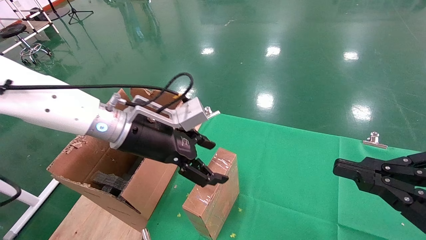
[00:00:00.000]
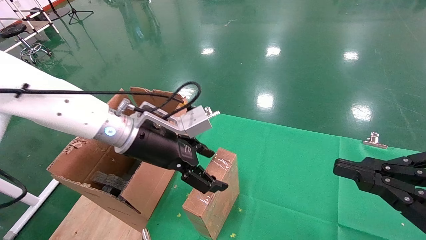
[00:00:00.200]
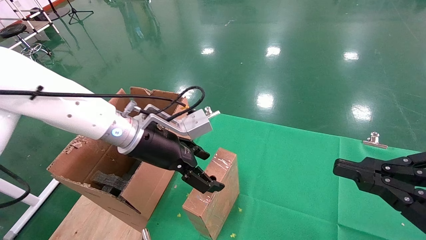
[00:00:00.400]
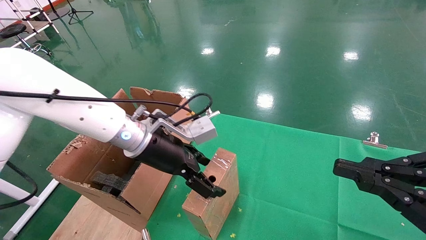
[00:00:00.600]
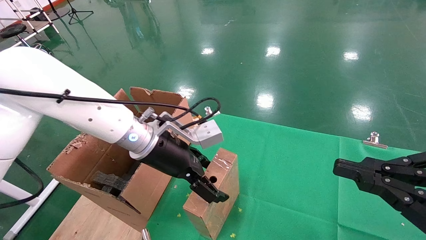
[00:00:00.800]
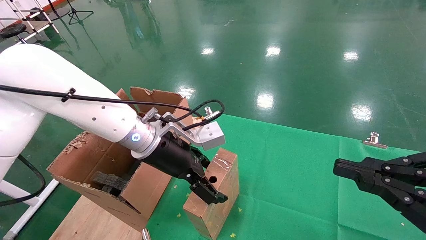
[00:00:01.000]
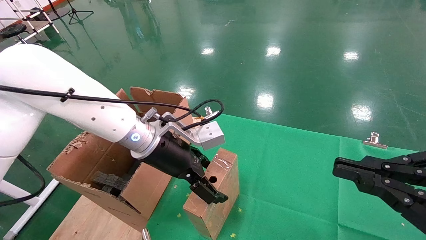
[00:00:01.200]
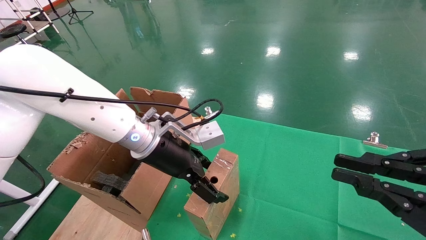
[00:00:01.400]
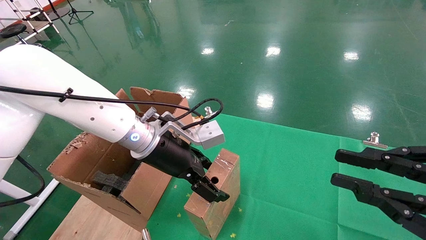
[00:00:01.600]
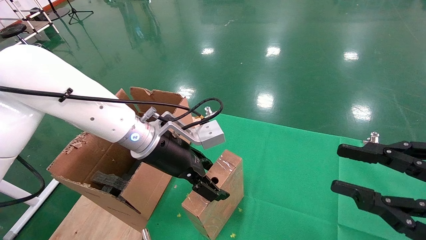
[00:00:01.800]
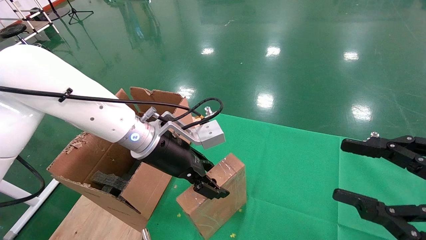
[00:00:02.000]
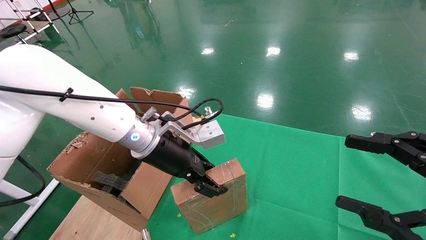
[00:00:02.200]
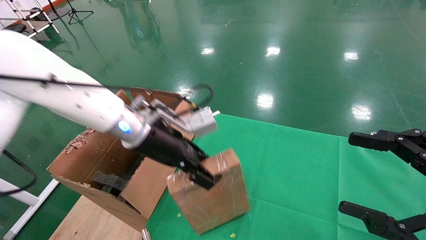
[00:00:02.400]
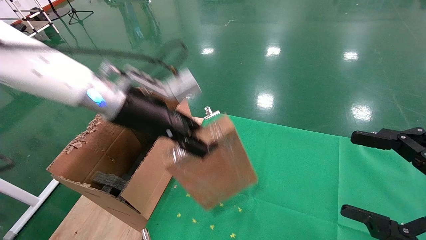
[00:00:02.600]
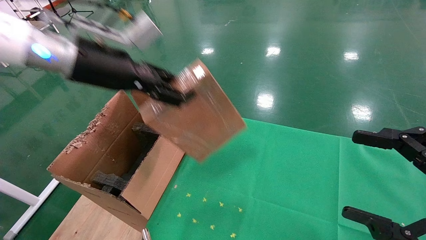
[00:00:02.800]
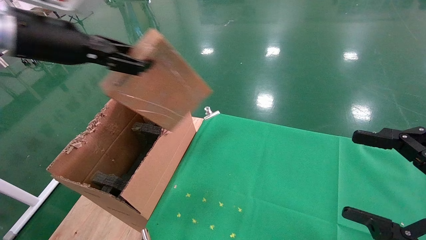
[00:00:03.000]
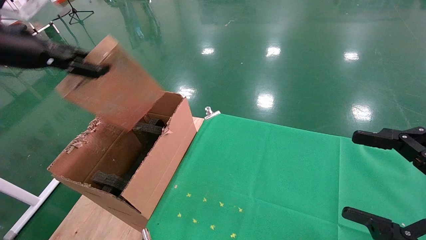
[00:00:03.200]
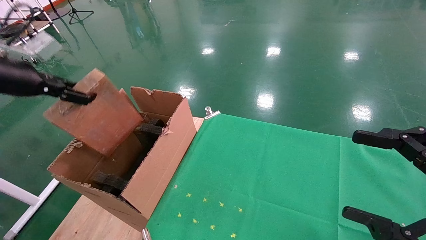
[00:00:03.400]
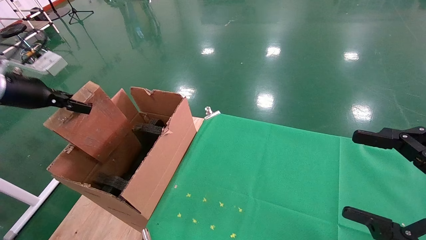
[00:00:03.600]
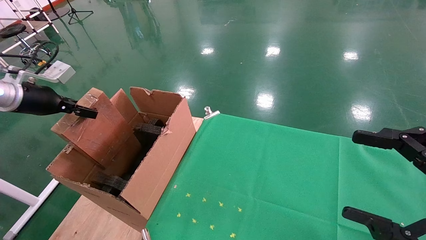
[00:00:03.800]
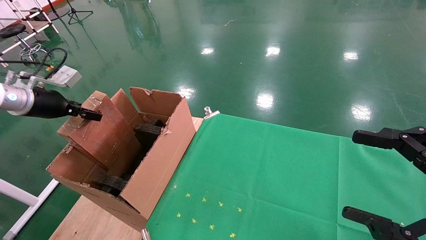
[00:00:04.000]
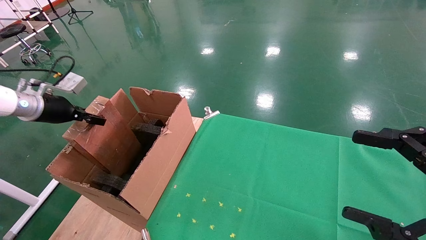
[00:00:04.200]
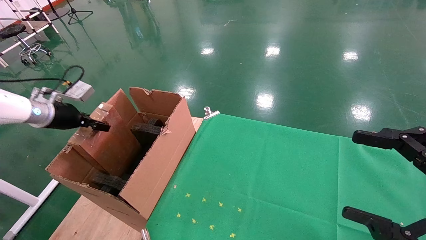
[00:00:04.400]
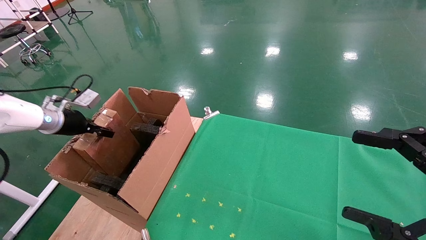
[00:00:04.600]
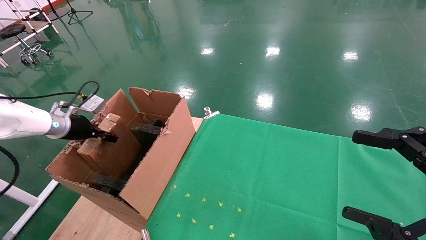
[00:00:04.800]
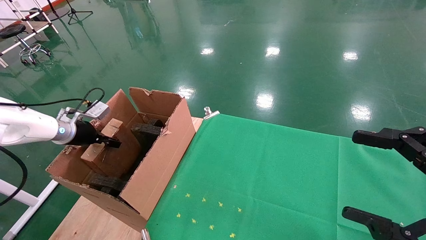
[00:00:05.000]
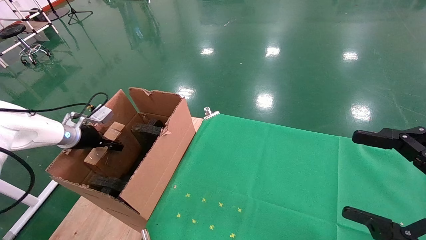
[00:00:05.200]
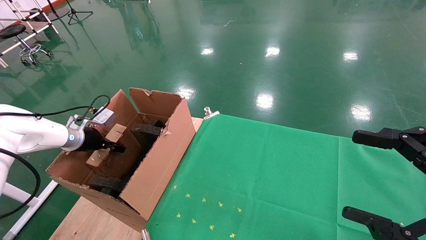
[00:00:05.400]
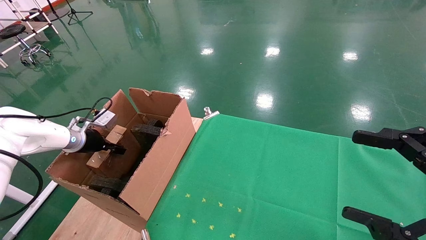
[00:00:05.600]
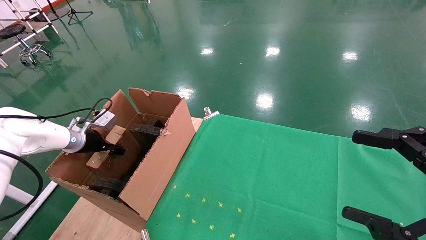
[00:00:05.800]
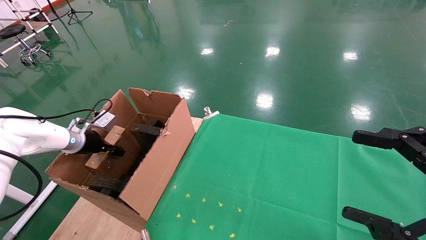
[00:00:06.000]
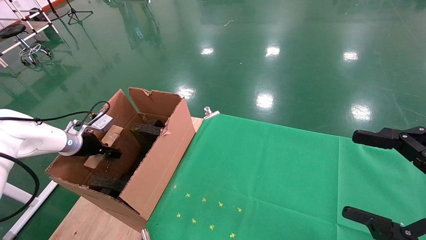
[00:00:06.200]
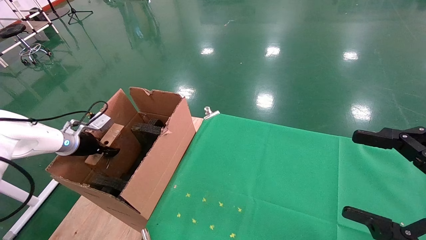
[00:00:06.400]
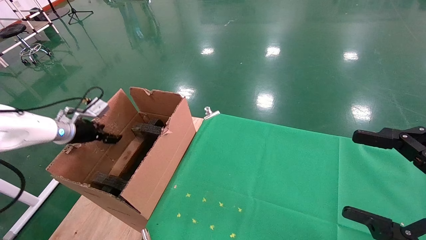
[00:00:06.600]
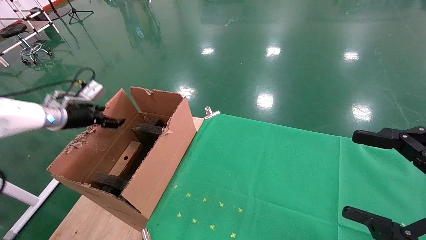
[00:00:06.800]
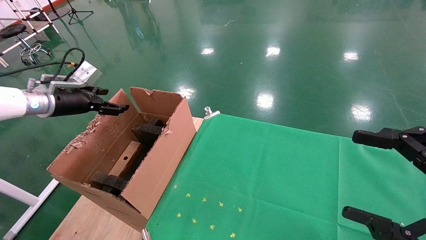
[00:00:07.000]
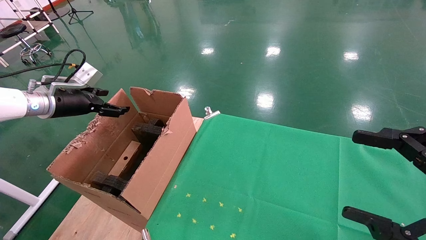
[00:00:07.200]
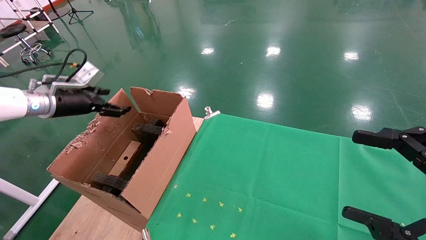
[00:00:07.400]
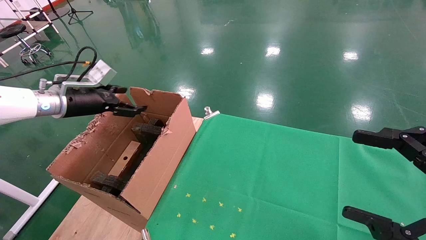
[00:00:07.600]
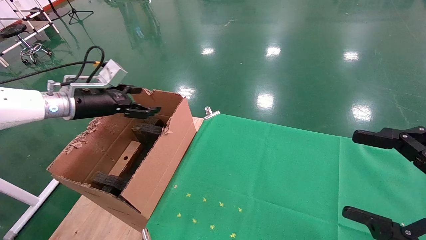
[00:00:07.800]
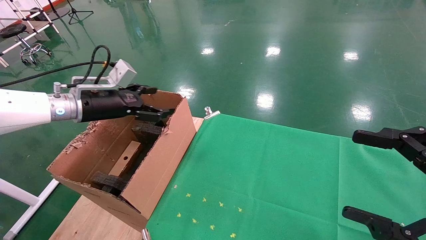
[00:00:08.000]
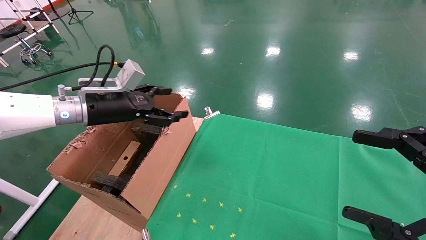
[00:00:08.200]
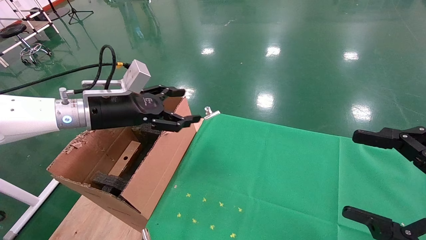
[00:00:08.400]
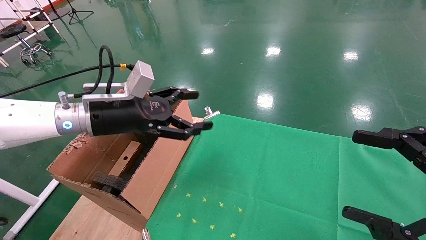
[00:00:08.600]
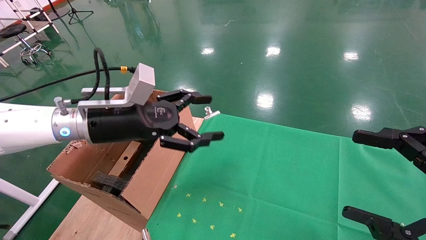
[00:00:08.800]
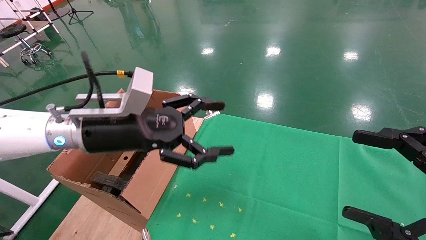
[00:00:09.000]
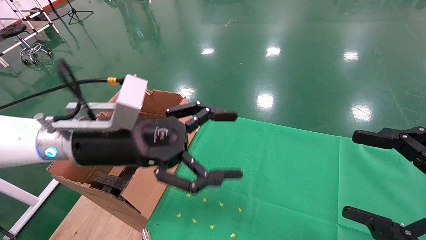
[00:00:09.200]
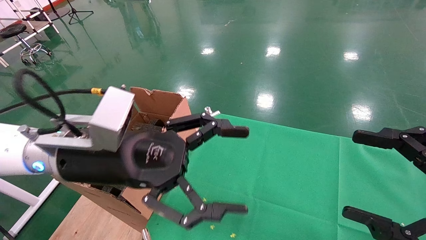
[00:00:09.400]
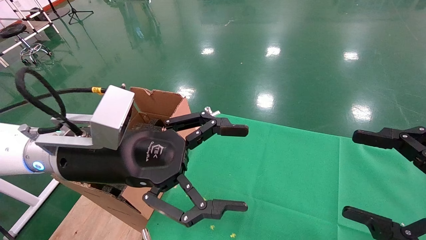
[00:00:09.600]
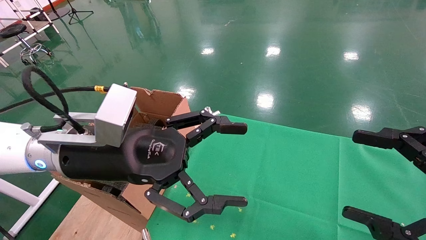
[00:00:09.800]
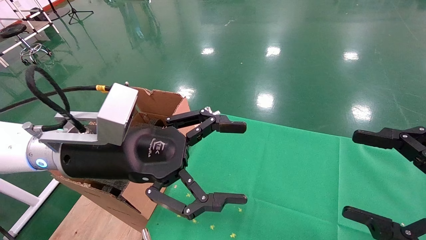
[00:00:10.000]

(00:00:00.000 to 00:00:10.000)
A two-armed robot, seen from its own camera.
Task of the whole recording: using a robotic arm to pick up a cardboard box and palace it the carton.
Step, 00:00:00.000 - 00:00:02.200: Pick up the mouse and the power cord paper box.
Step, 00:00:02.400 - 00:00:07.200: Place the mouse and the power cord paper box into the container.
00:00:00.000 - 00:00:01.400: The grippers stay close to where they were, moving slightly.
00:00:01.400 - 00:00:02.800: The left gripper goes some 20 cm upward and to the left, and closes its fingers. The right gripper opens up.
00:00:02.800 - 00:00:04.200: The left gripper goes roughly 25 cm to the left and downward.
00:00:04.200 - 00:00:05.800: The left gripper is displaced downward by approximately 15 cm.
00:00:05.800 - 00:00:07.200: The left gripper goes about 15 cm upward, and opens up.
00:00:07.200 - 00:00:08.600: The left gripper shifts roughly 20 cm to the right.
00:00:08.600 - 00:00:10.000: The left gripper shifts about 10 cm backward and to the right.

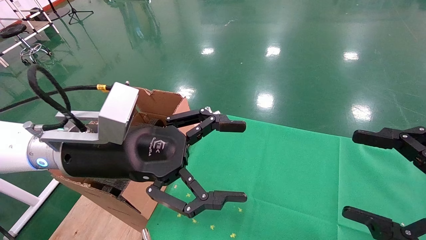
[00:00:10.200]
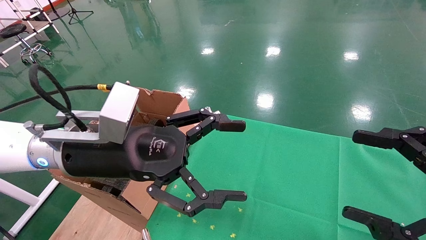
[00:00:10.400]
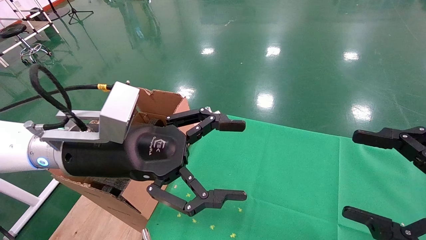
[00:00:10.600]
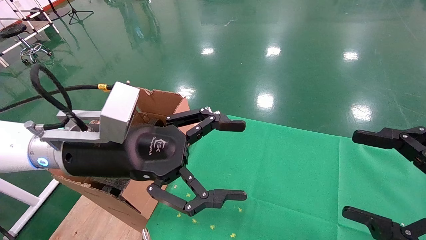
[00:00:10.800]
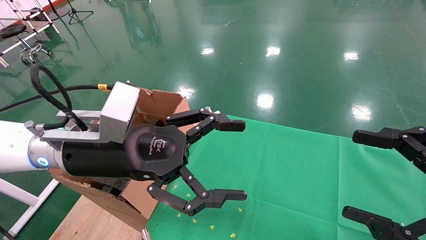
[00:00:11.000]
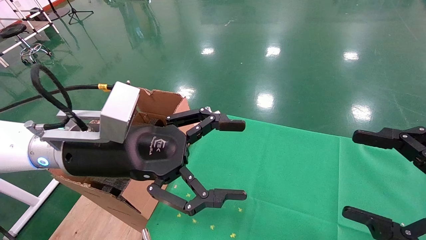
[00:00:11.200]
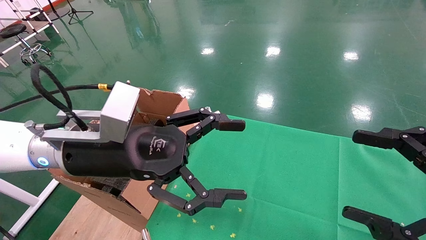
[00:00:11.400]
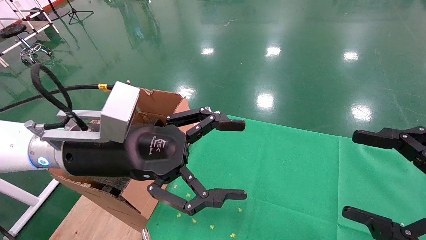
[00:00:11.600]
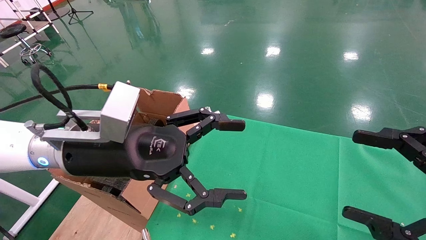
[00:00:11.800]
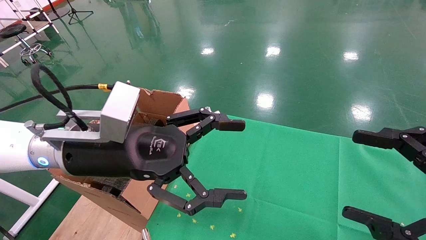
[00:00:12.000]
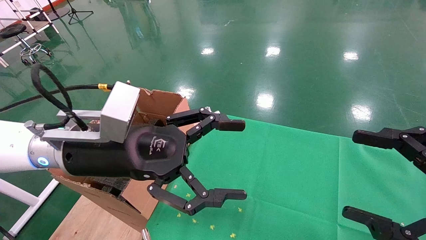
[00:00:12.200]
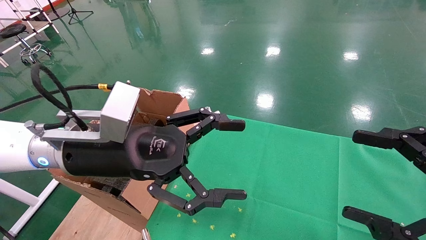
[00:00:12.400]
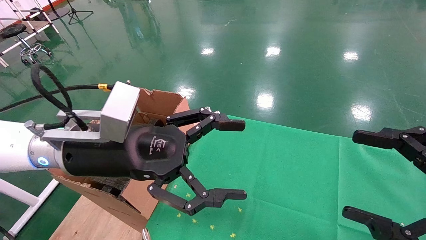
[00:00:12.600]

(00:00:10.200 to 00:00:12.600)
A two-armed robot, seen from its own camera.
Task of the whole recording: using a robotic arm to pick up a cardboard box and palace it the carton.
00:00:10.200 - 00:00:12.600: The two grippers keep their place.
